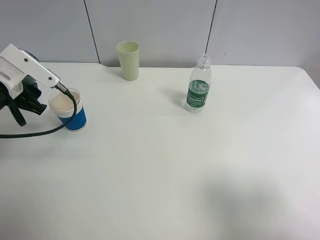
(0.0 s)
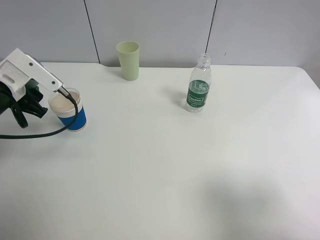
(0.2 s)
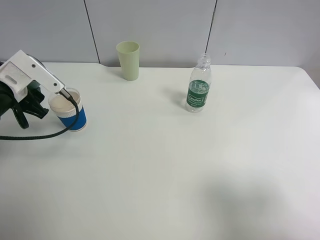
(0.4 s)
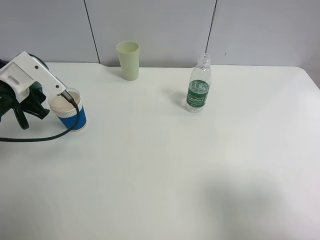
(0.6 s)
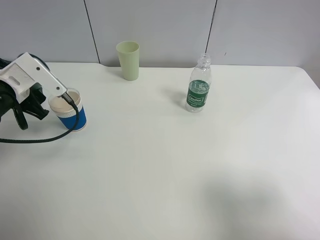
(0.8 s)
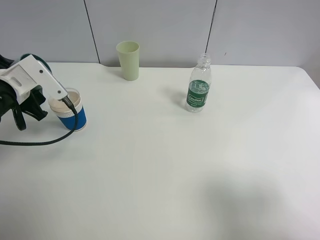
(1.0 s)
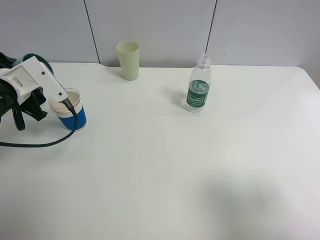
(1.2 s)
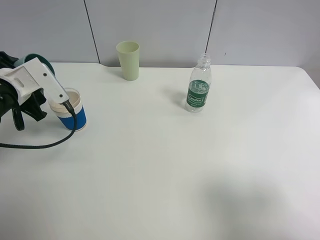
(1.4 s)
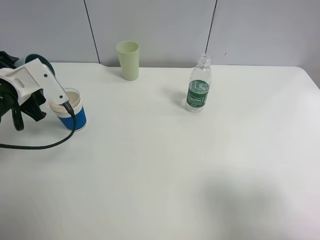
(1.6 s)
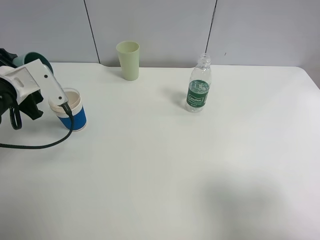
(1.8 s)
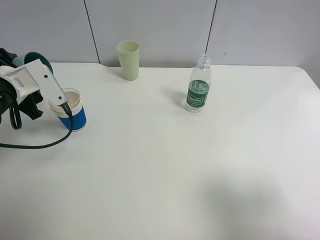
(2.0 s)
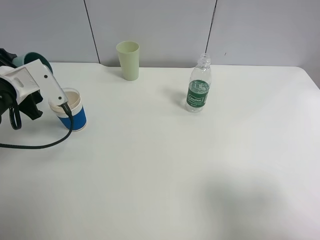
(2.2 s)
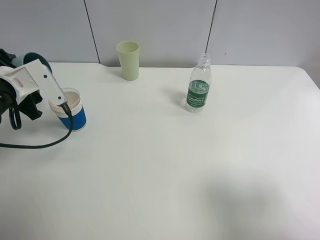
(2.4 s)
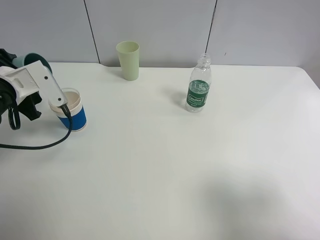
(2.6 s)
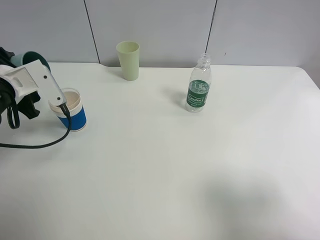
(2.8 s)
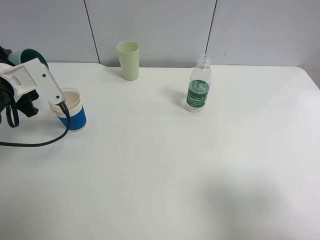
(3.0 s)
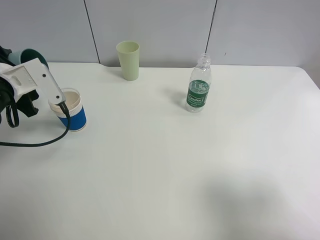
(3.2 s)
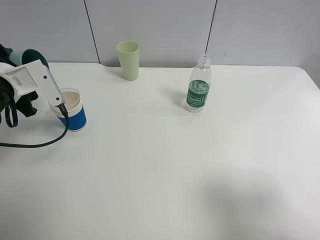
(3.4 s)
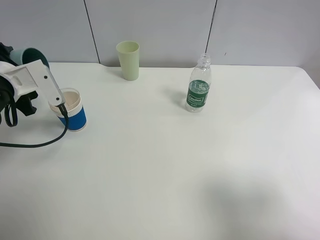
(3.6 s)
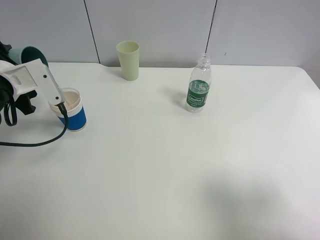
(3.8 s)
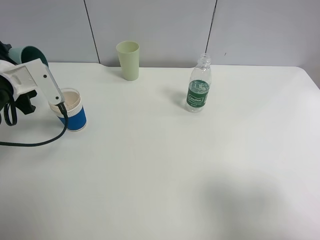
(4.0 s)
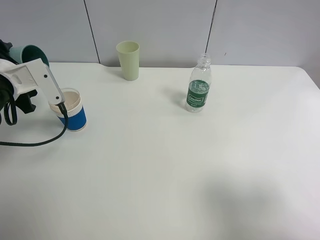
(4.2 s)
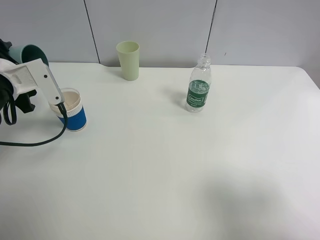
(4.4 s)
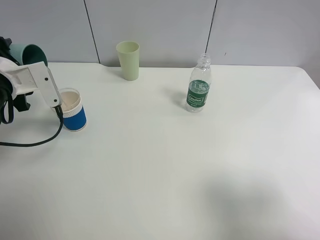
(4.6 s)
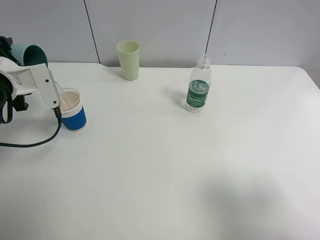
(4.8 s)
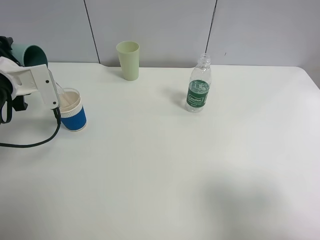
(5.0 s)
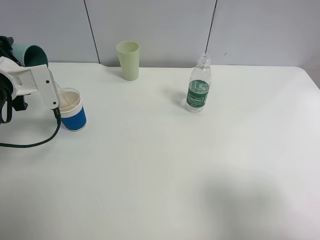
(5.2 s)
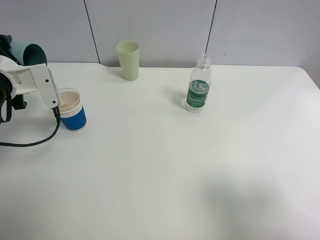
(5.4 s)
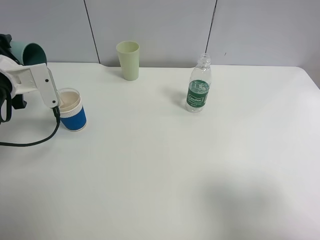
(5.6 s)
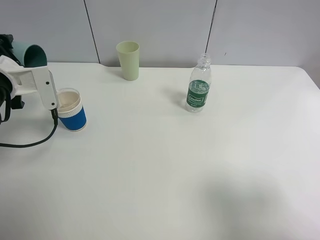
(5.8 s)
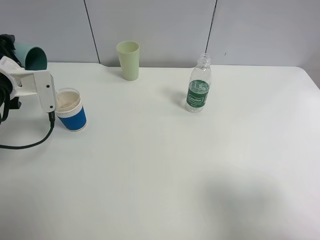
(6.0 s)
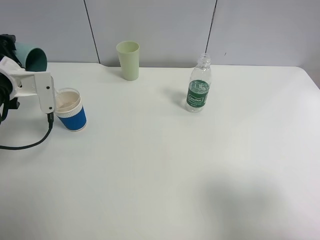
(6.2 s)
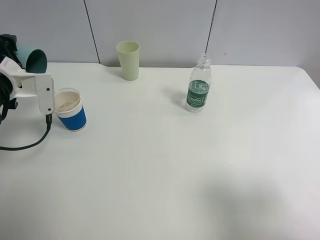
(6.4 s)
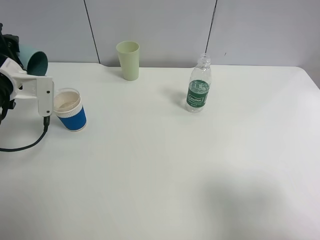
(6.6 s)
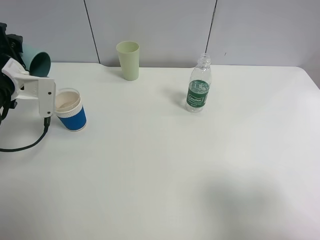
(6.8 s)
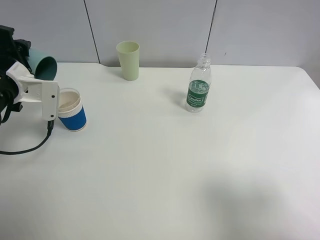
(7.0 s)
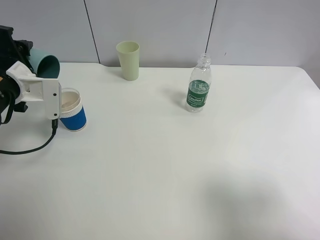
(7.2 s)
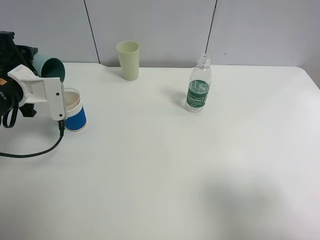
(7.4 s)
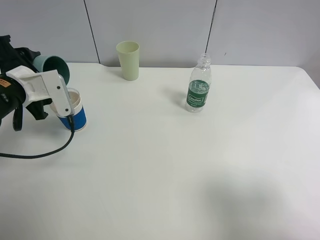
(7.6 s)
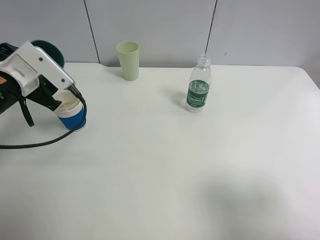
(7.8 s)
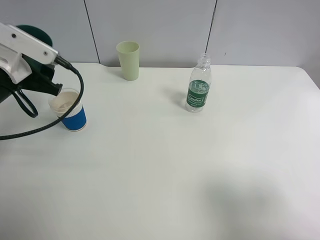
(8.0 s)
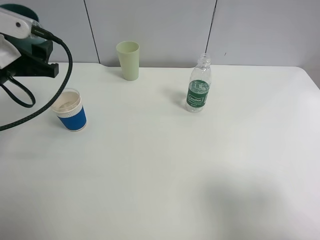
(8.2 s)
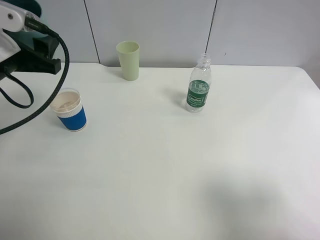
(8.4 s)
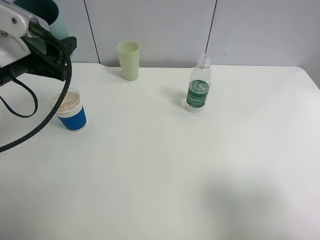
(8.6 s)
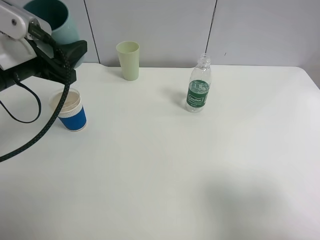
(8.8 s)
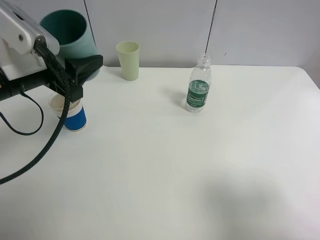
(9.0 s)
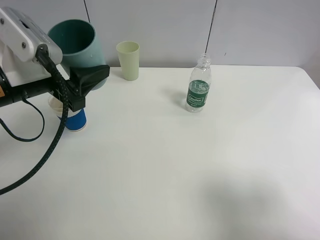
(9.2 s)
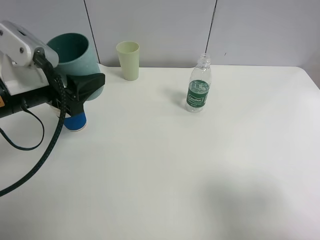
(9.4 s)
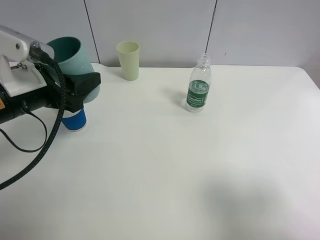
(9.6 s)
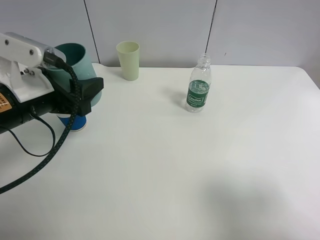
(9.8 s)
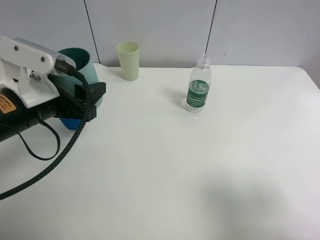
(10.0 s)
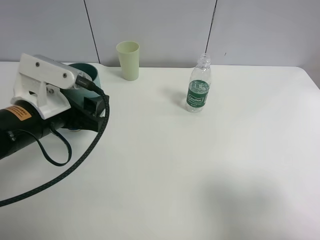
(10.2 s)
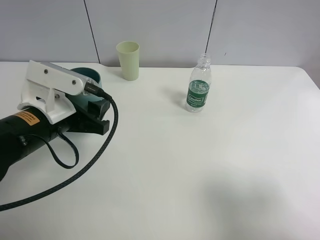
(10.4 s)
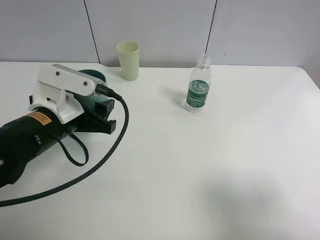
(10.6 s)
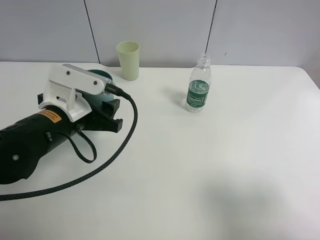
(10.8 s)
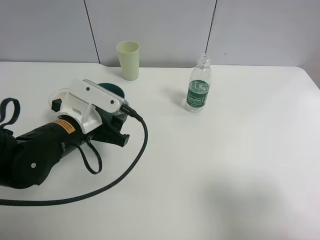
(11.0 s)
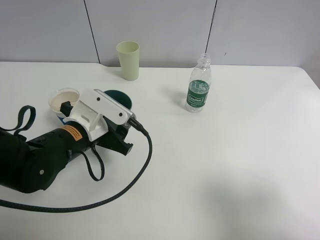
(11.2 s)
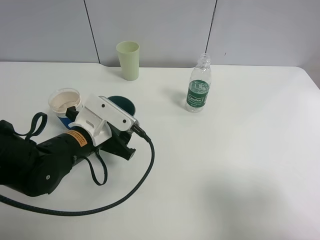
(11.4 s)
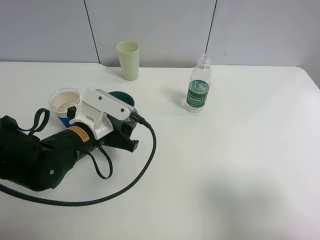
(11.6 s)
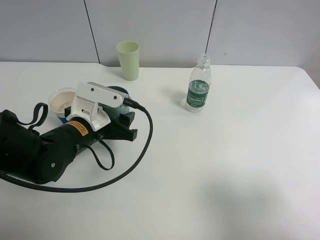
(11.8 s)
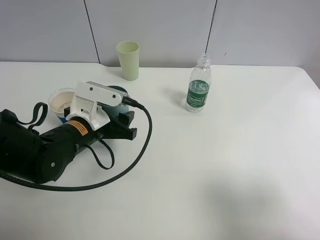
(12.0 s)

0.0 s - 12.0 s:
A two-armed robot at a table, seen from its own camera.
Task of the whole recording: use a clamp to hold the bottle of the drink, pour the beverage into a random cup, then clamp the cup containing the drink and pour the drink into another random cup.
Step, 0.0 s - 8.0 s: Pour water into the paper cup with left gripper.
0.0 s - 1.6 s: The grippers move only a little.
1.6 s - 4.4 s: There are only small adjustments of the grippers.
4.4 s - 6.0 s: The grippers stay close to where they were, moving slightly.
7.6 s - 9.0 s: The left gripper goes roughly 10 cm upward and to the right.
9.0 s - 10.4 s: The left gripper shifts roughly 5 cm downward.
10.4 s - 12.0 s: The left gripper travels downward by roughly 5 cm.

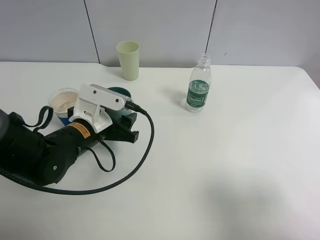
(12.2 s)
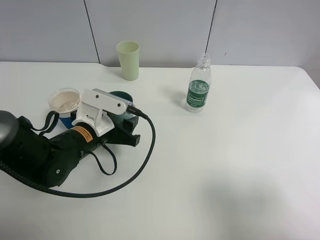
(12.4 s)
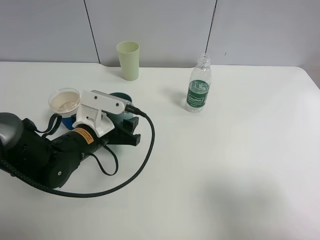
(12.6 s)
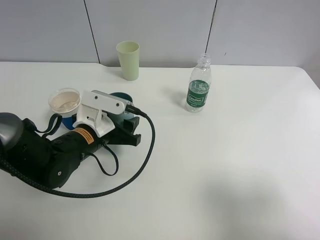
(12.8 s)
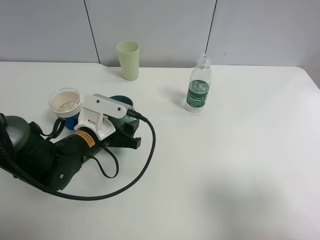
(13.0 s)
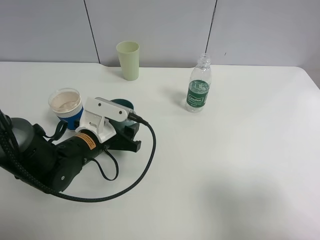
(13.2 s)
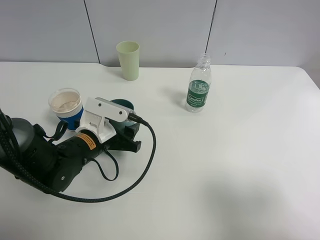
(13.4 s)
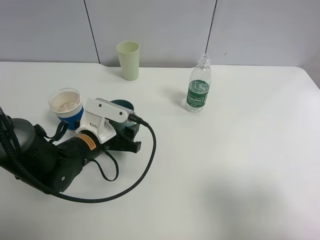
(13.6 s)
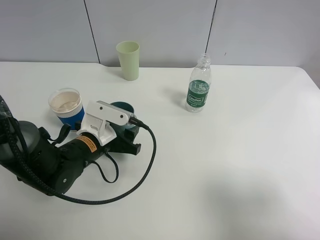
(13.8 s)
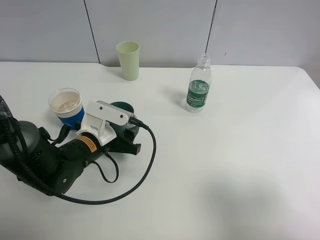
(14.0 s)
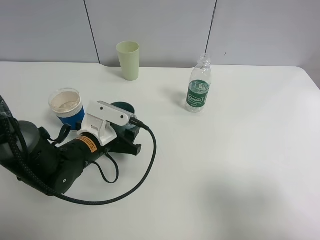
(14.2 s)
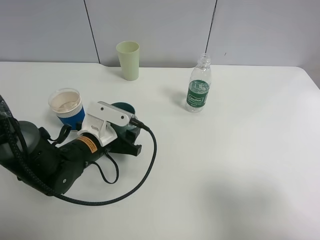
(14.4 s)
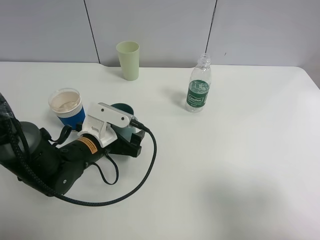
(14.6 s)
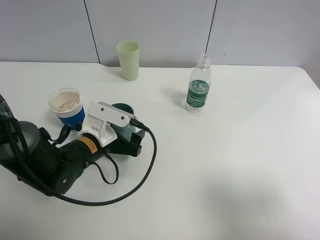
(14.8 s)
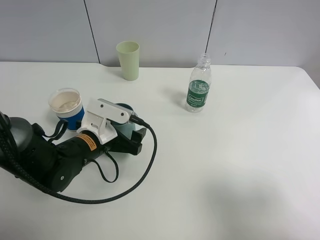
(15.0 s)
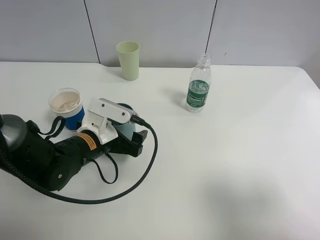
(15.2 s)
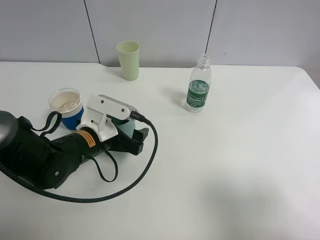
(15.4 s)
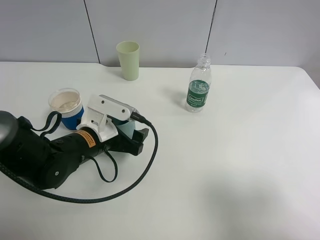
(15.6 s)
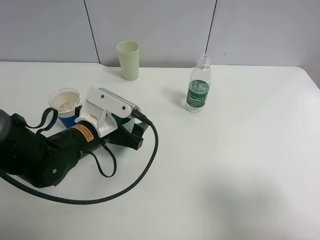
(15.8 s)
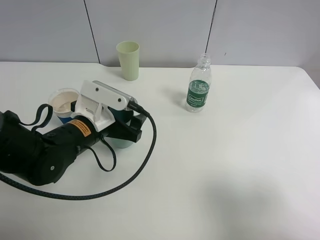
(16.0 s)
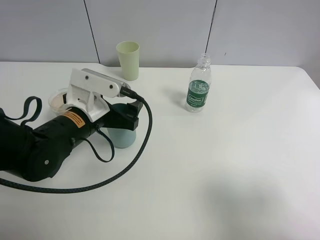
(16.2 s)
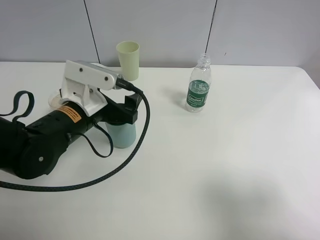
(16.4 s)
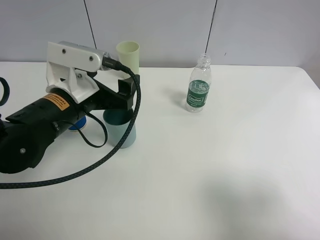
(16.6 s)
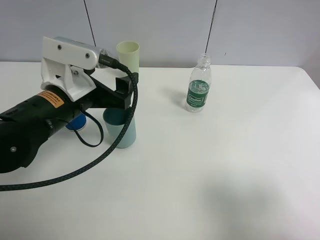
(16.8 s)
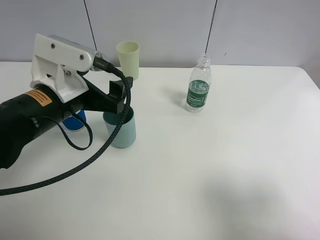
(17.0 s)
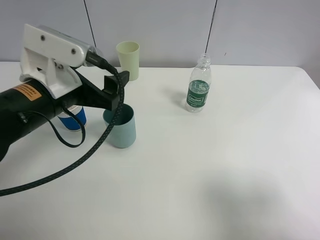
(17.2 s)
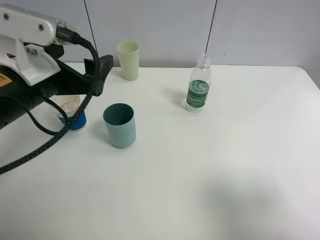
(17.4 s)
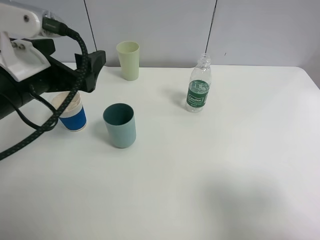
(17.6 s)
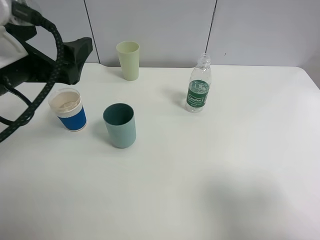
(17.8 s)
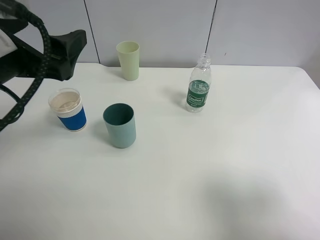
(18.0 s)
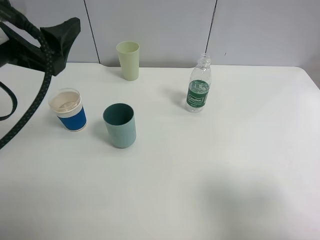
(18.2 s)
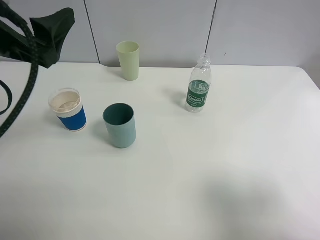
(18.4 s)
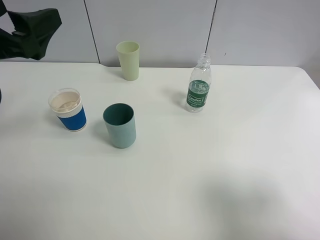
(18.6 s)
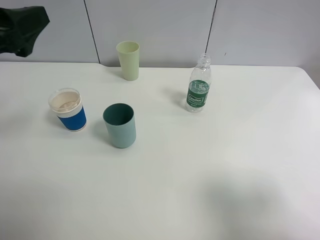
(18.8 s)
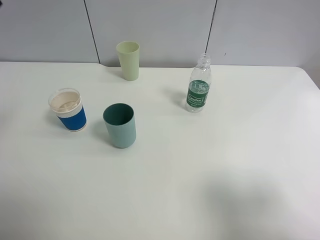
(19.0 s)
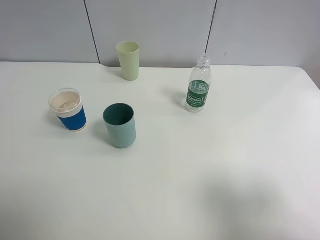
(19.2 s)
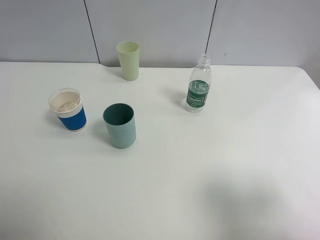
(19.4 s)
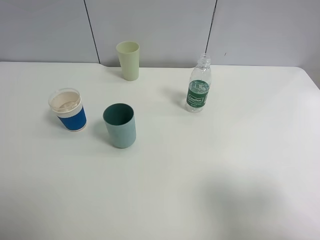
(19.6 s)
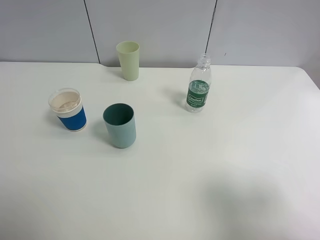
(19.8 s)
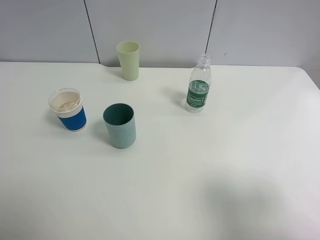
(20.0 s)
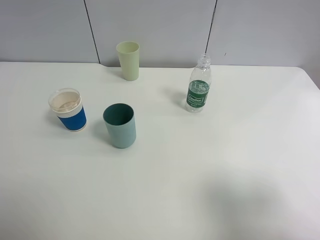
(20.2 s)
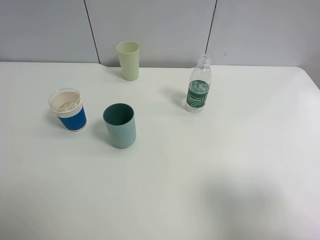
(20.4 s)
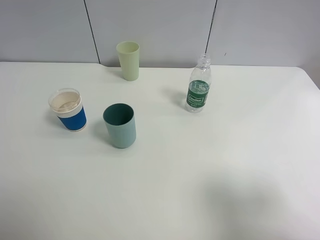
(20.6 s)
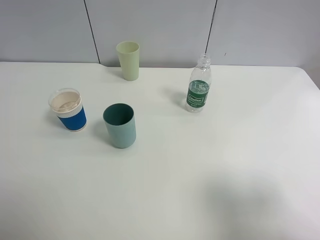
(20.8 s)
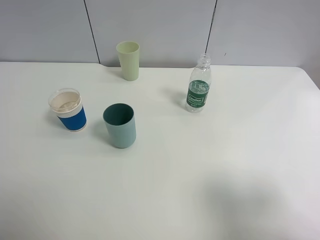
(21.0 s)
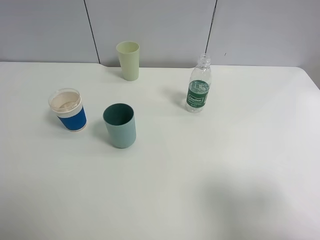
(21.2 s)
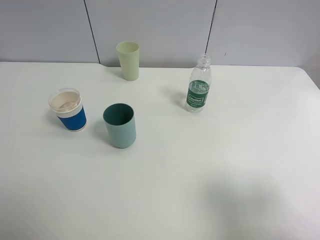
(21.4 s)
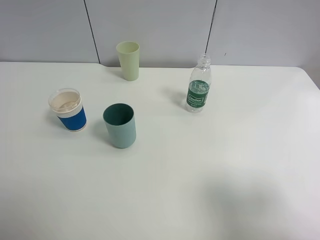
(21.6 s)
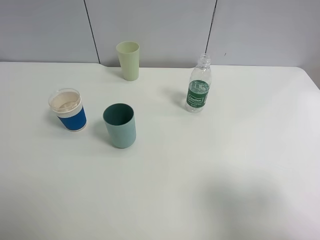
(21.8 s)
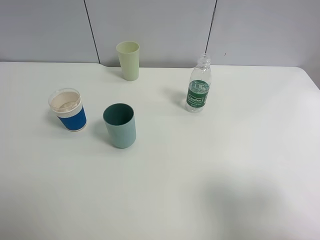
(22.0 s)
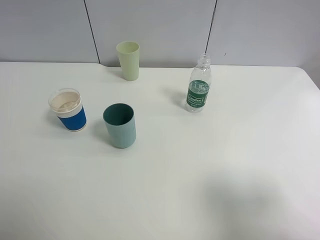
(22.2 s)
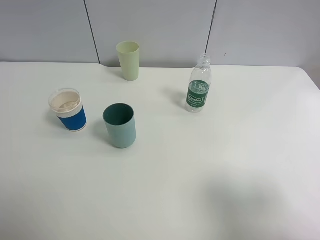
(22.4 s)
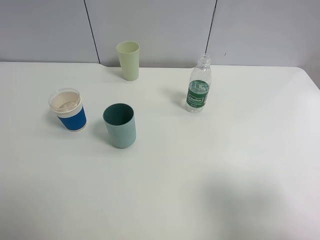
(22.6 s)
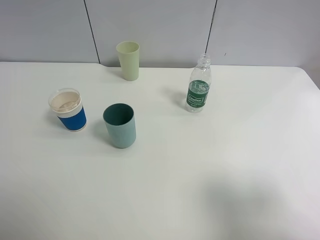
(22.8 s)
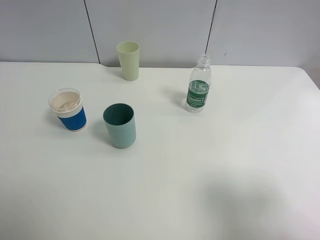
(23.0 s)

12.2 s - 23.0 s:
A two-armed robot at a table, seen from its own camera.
Task of the whole recording: use a clamp to hold the bottle of the drink, pour the beverage into a random cup, then clamp the cup containing the drink and pour the drink into another random cup.
Step, 12.2 s - 16.4 s: Place the blue plastic cup on the table with left gripper.
12.2 s - 13.8 s: The grippers make only small movements.
13.8 s - 15.2 s: The left gripper opens up.
15.2 s - 16.8 s: The left gripper is displaced upward by approximately 10 cm.
16.8 s - 18.4 s: The left gripper travels upward and to the left by about 10 cm.
18.4 s - 20.0 s: The left gripper is displaced backward and to the left by about 15 cm.
